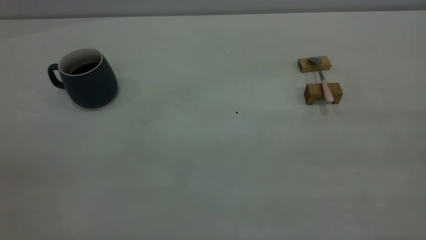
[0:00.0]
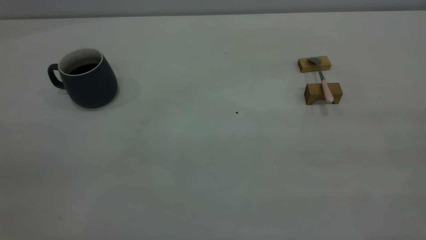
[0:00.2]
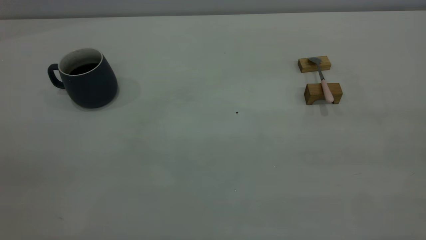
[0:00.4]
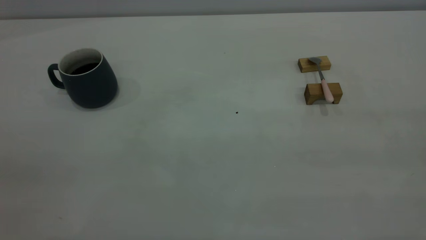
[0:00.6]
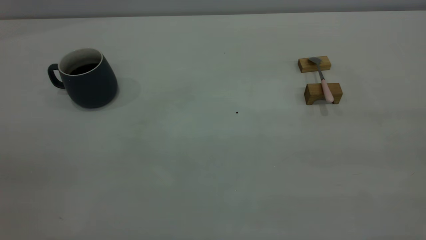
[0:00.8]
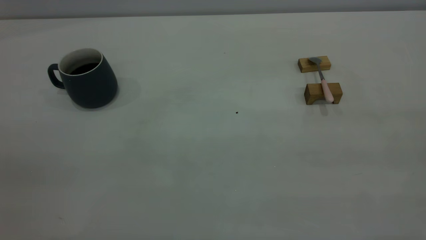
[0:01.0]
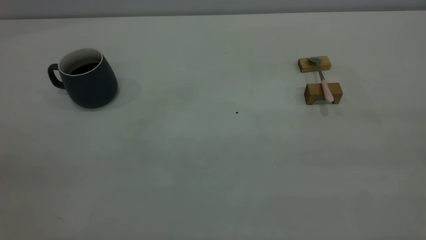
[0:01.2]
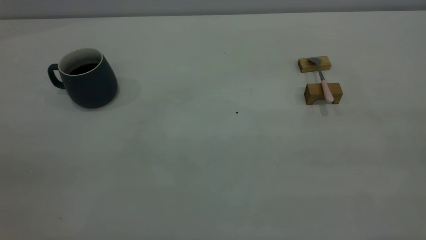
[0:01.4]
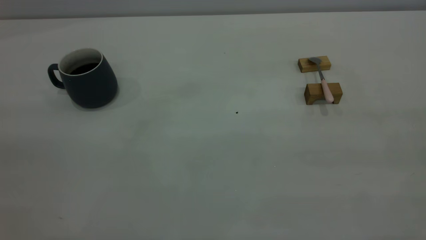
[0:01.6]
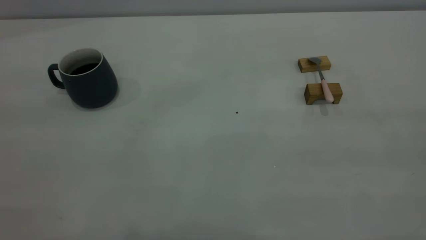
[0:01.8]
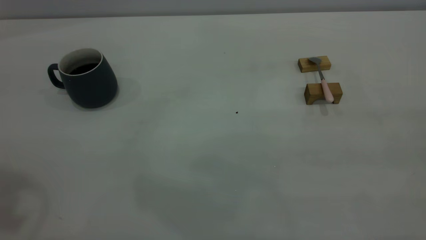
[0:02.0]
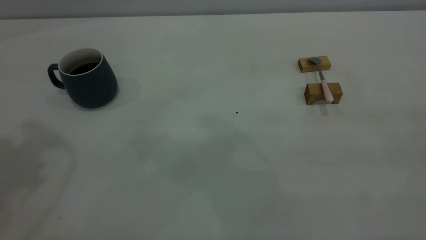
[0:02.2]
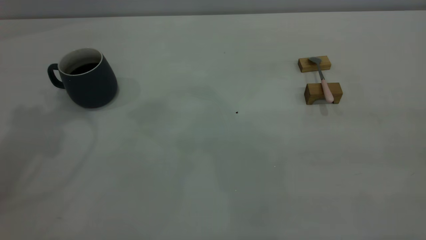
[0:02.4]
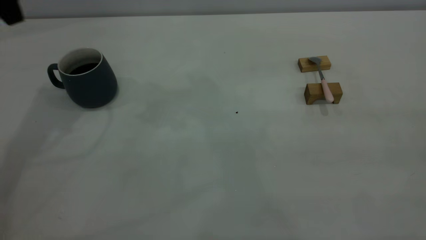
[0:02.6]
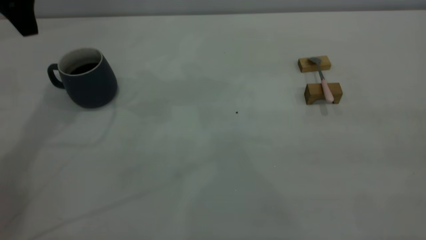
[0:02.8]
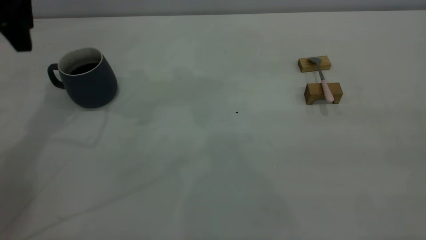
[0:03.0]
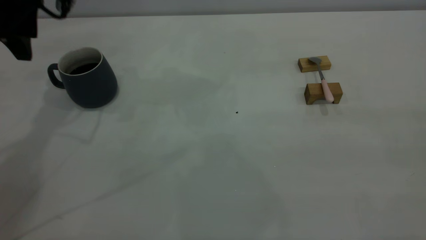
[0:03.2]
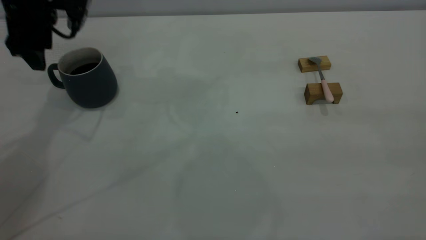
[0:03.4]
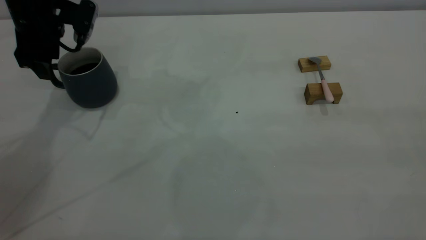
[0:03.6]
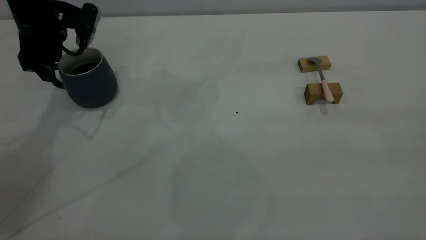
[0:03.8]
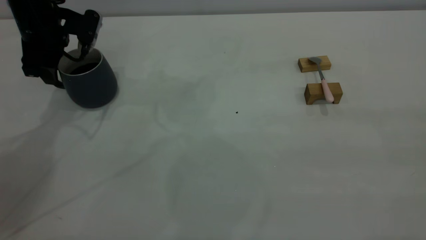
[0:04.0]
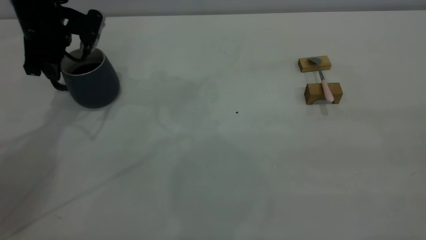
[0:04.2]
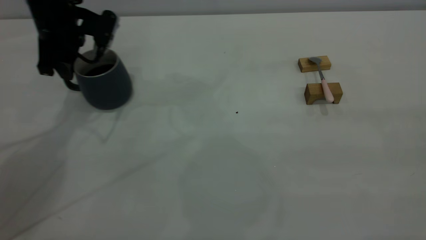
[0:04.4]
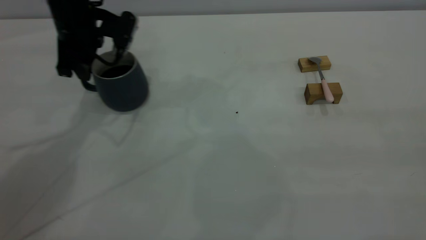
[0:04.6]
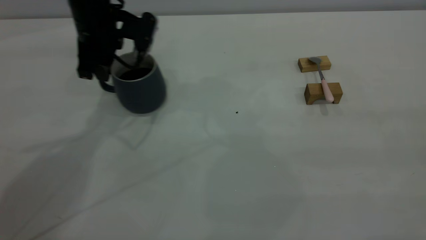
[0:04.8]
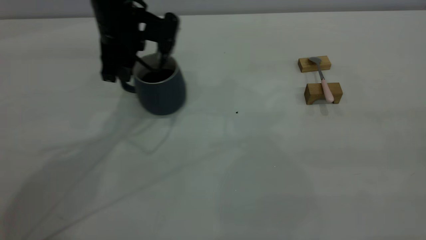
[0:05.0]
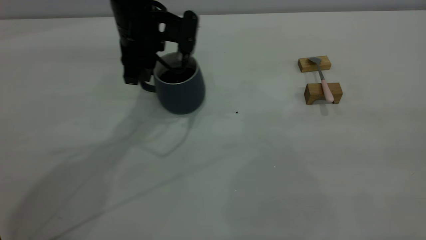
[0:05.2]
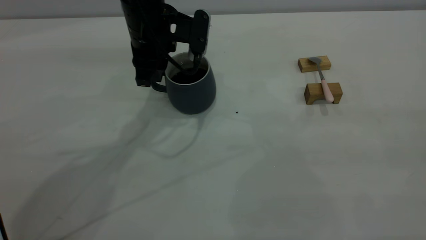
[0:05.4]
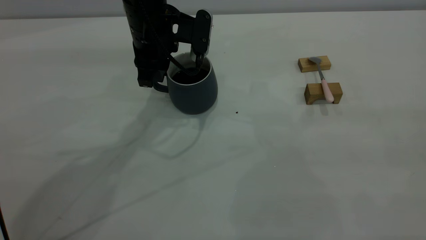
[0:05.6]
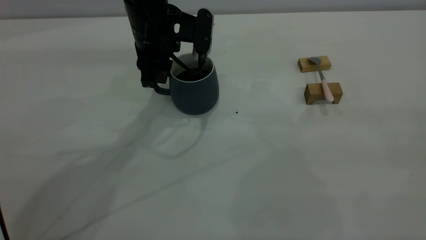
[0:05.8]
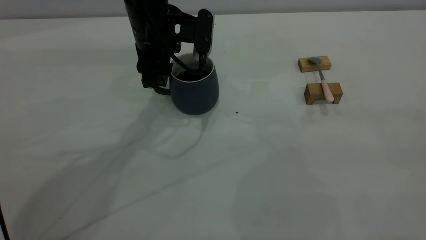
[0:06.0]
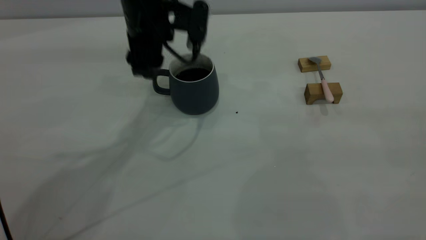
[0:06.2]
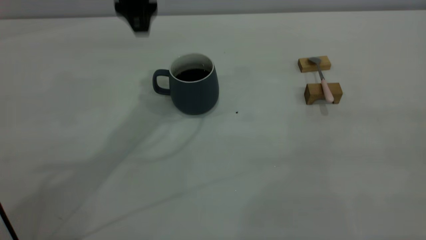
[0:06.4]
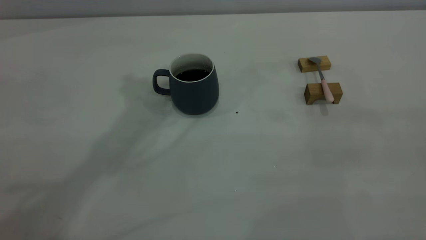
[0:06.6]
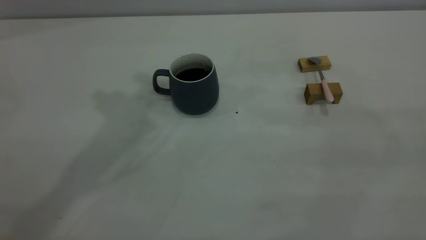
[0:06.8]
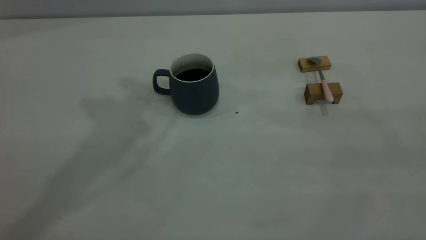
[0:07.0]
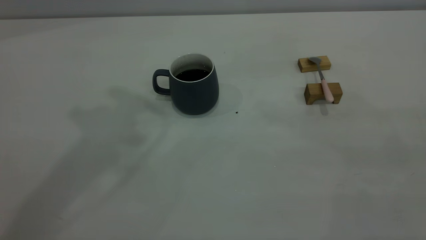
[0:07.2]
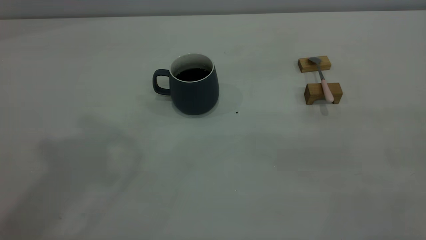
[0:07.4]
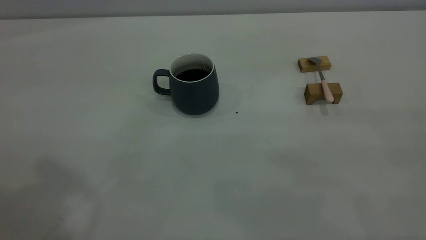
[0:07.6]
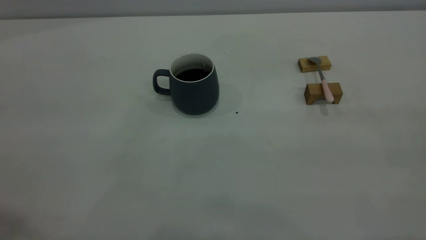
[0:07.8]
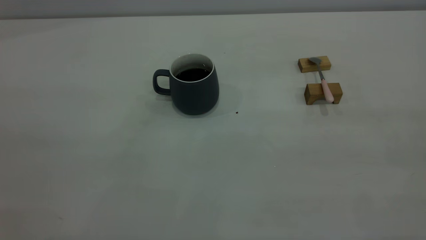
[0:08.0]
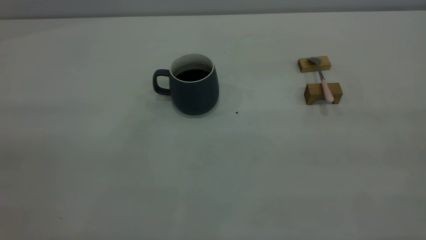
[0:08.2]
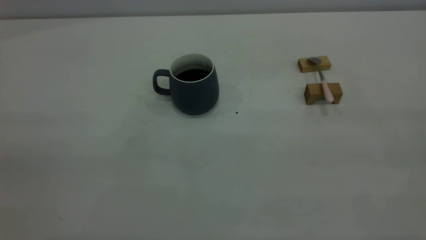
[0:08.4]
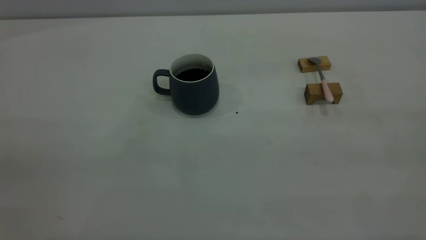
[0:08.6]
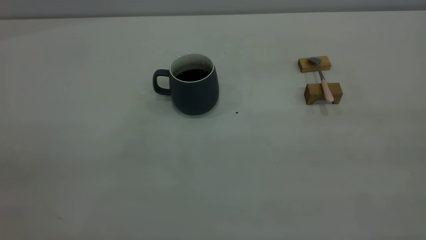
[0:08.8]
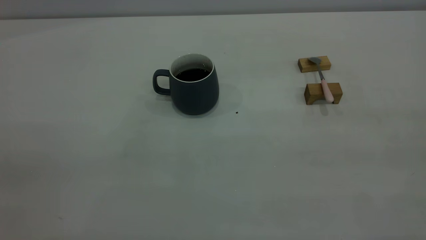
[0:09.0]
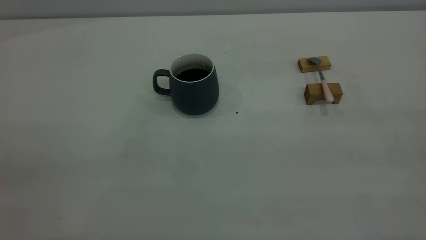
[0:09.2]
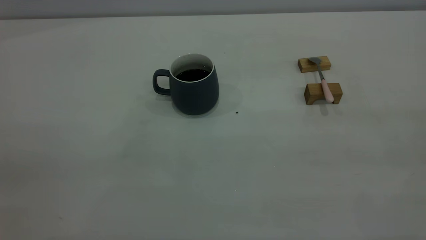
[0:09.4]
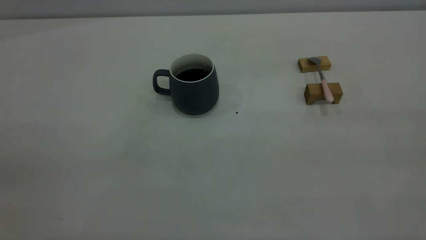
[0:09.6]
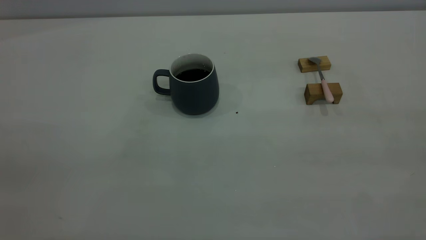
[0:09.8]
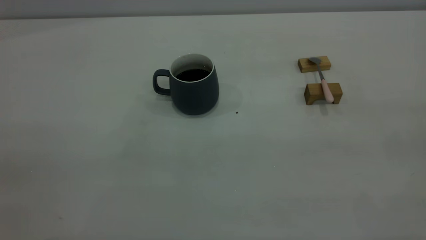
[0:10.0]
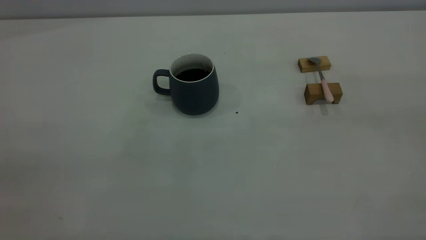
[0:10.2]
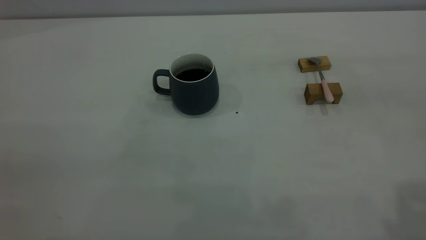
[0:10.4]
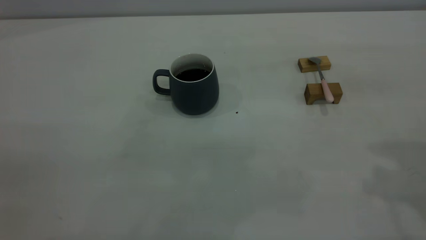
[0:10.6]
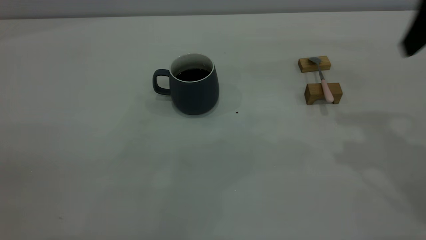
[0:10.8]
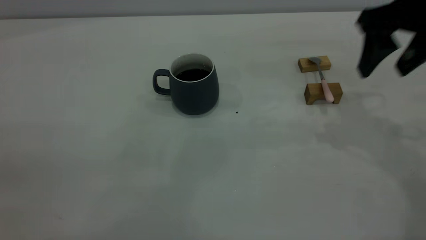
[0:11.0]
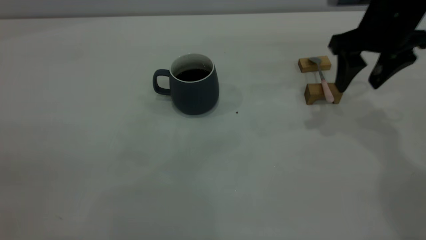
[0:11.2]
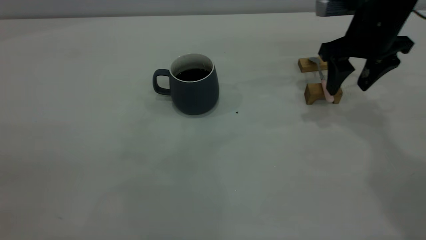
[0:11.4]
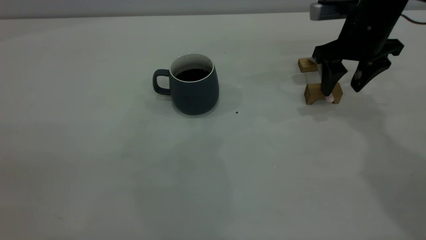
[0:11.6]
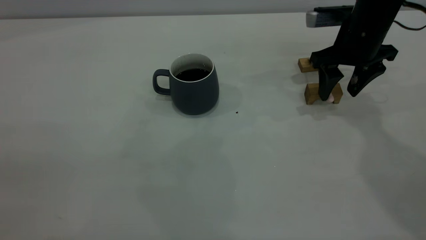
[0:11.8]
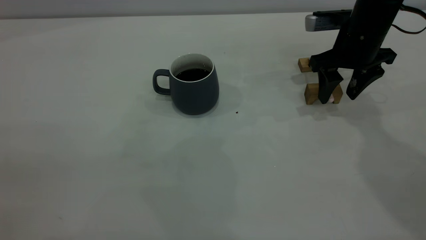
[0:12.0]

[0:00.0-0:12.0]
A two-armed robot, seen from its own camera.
Step, 0:00.0 to 0:06.2: Move the cup with coffee to the center of view.
0:01.6 to 0:03.0: The left gripper moves forward, roughly 40 cm, and opens.
0:03.0 to 0:04.4: The left gripper travels downward by approximately 10 cm, and closes up.
0:04.4 to 0:06.0: The left gripper travels to the right by roughly 15 cm, and opens.
0:06.0 to 0:07.6: The left gripper goes approximately 40 cm upward, backward and to the left.
0:10.4 to 0:12.0: The right gripper travels forward and downward by approximately 35 cm.

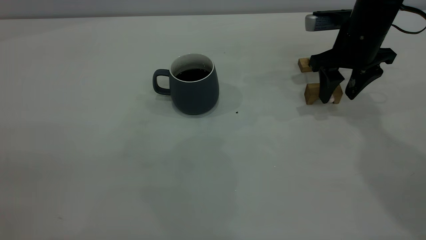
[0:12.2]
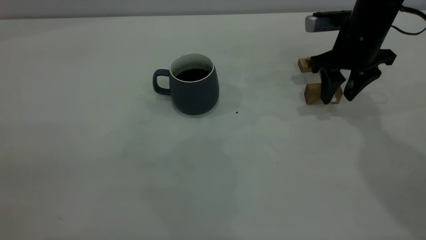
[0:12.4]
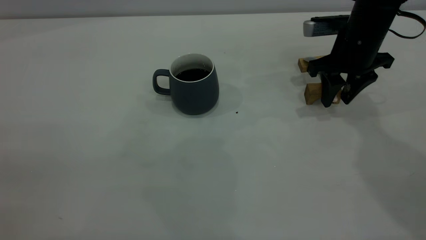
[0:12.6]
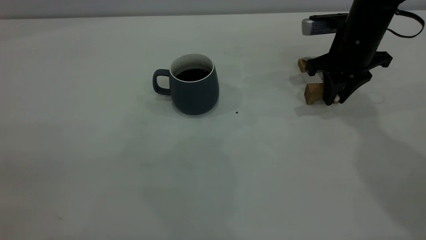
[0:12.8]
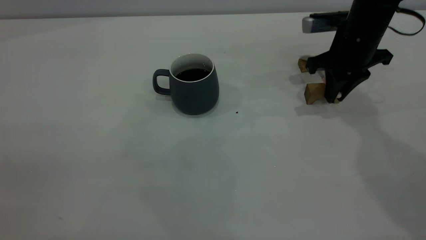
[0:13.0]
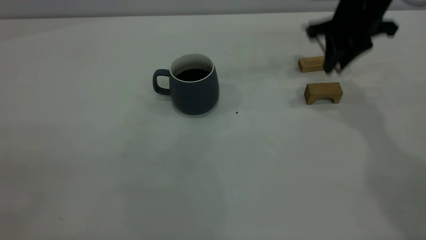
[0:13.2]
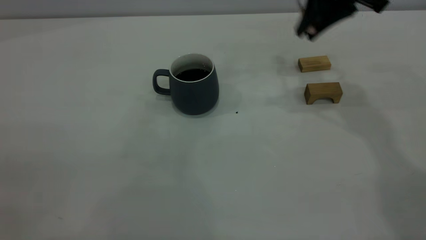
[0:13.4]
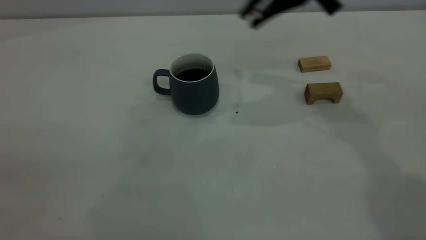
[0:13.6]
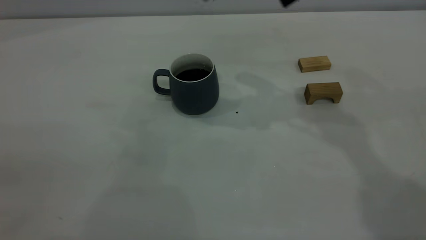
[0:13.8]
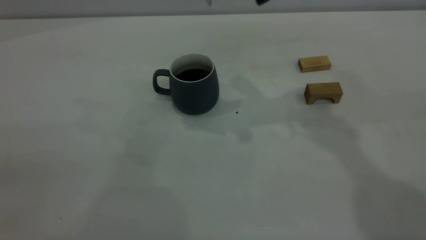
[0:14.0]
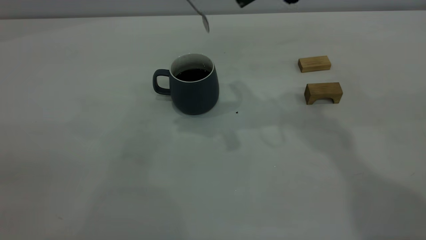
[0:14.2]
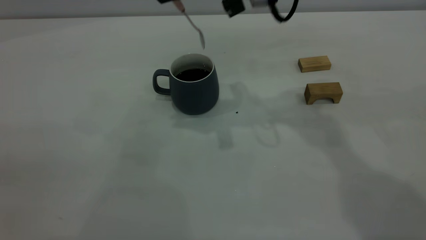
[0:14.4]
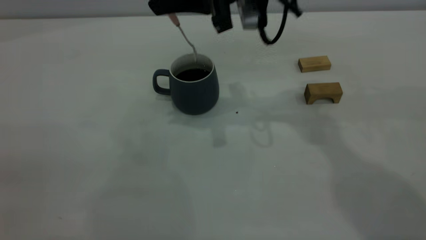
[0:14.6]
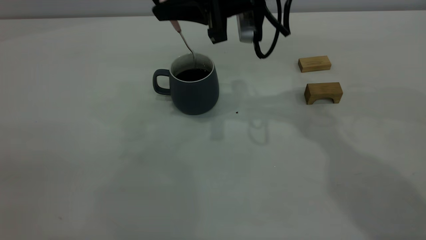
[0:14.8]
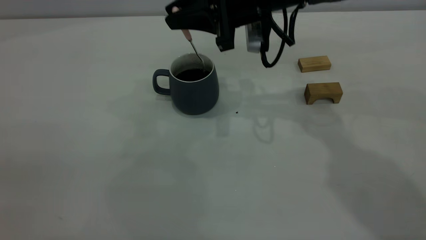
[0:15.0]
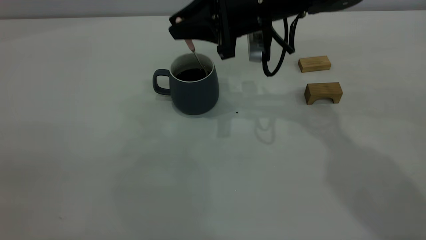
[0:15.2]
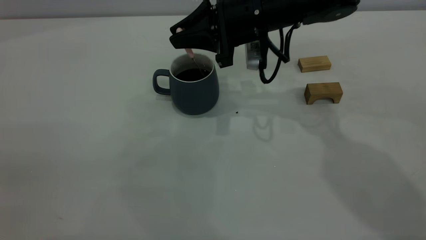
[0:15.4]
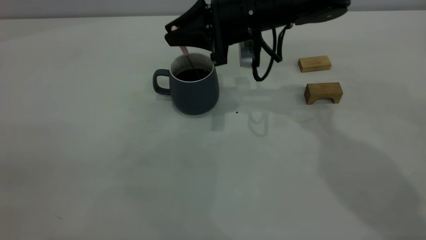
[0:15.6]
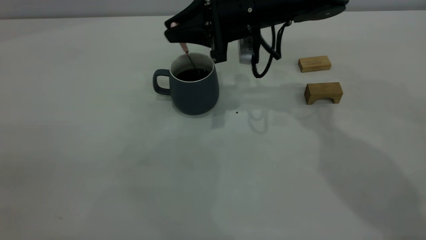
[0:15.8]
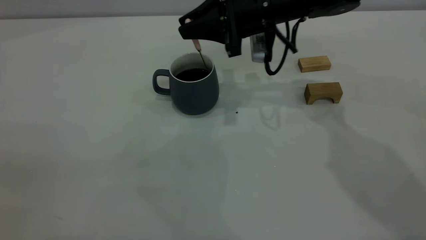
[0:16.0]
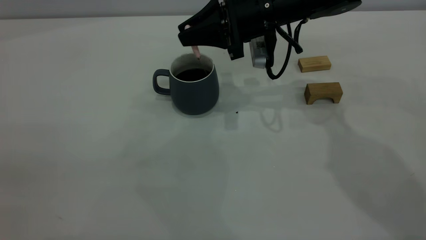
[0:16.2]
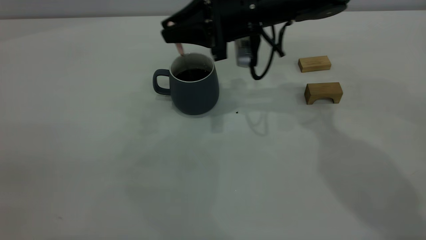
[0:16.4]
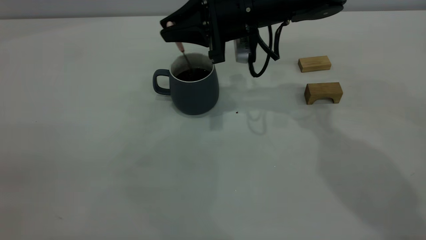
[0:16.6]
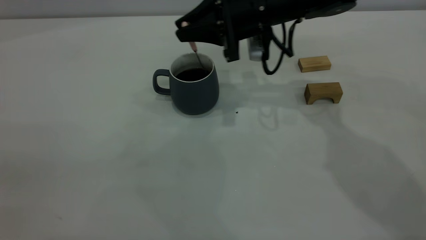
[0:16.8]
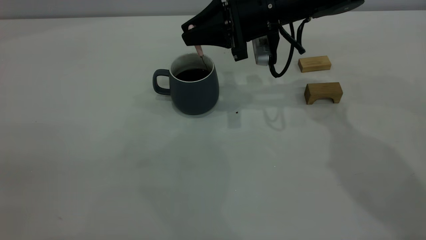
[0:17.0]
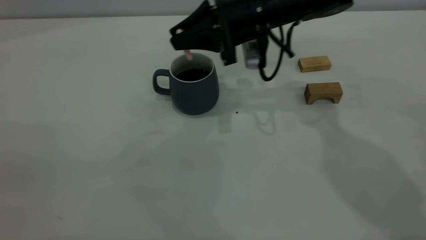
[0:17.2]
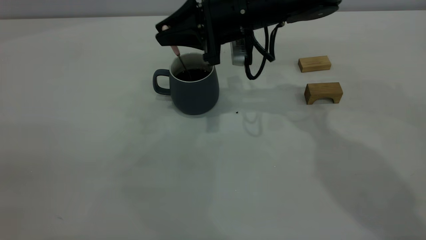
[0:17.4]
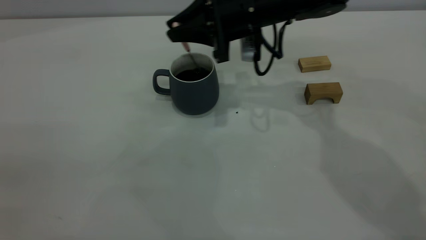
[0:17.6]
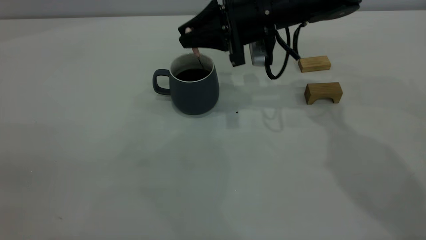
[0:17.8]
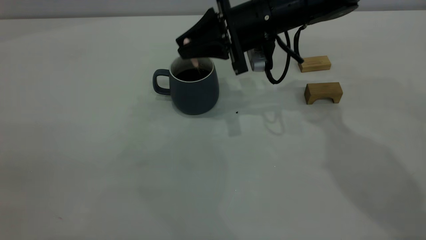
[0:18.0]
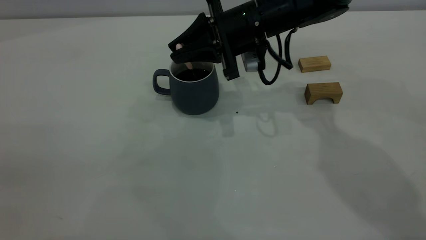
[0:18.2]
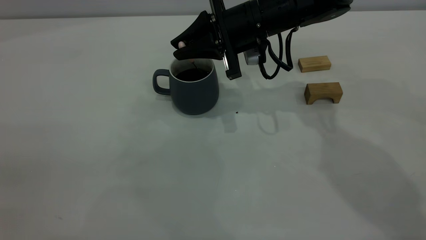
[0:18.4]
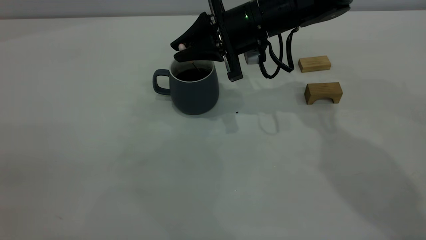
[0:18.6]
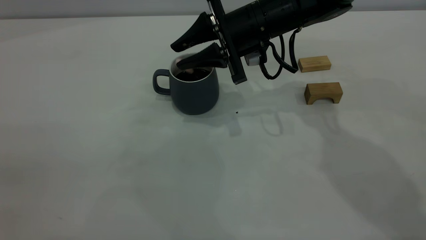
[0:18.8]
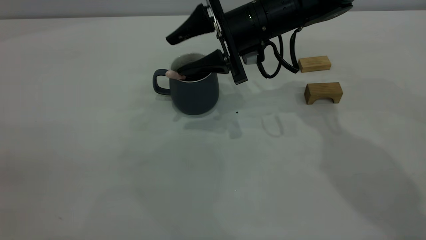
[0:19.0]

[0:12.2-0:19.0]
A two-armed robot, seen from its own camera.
0:12.2 to 0:13.6: The right gripper is displaced upward and to the left by about 20 cm, and closes.
0:13.6 to 0:15.0: The right gripper moves downward and to the left, roughly 10 cm.
0:15.0 to 0:17.6: The grippers make only small movements.
0:17.6 to 0:19.0: The right gripper opens its fingers.
